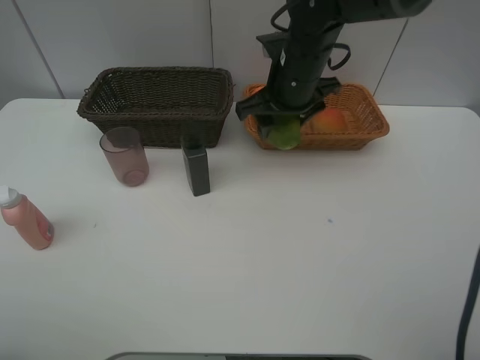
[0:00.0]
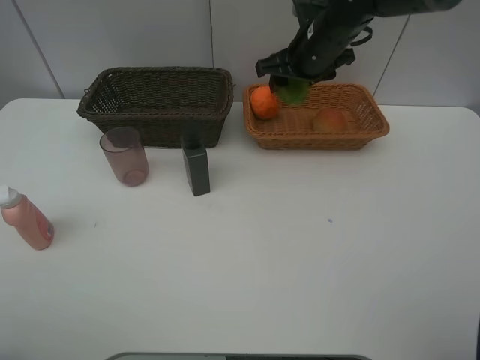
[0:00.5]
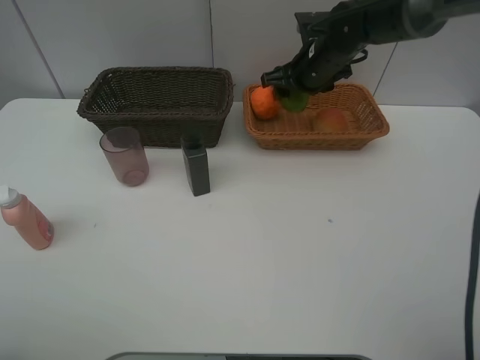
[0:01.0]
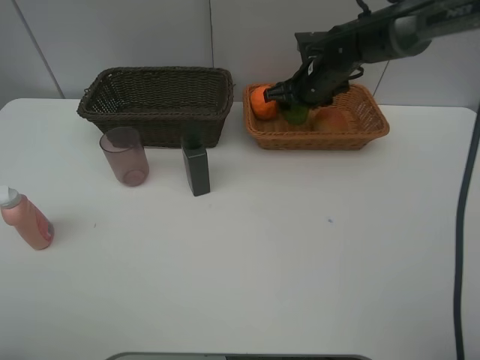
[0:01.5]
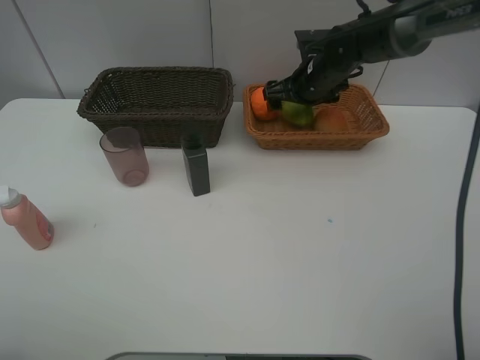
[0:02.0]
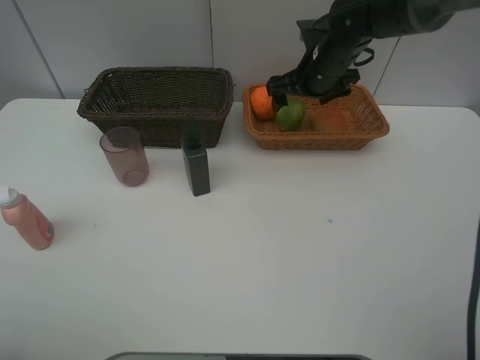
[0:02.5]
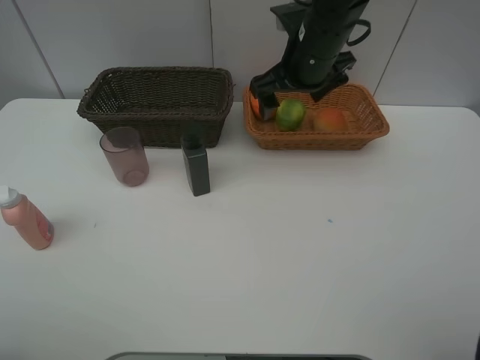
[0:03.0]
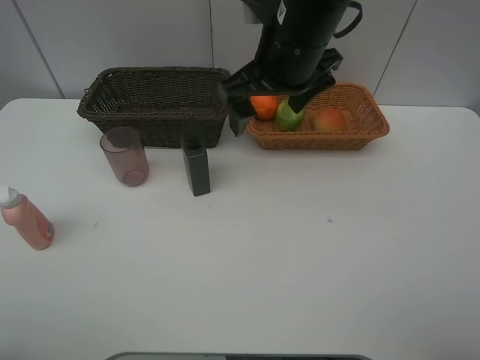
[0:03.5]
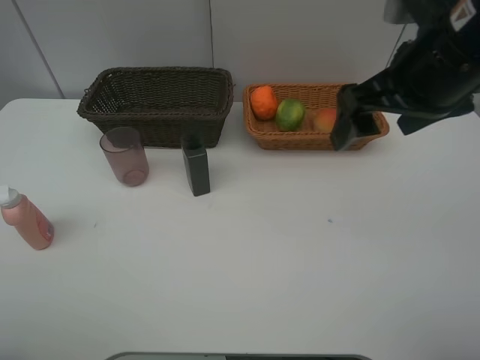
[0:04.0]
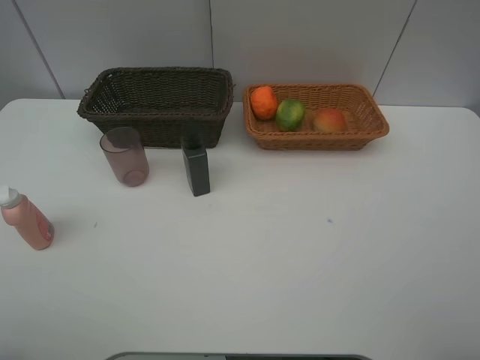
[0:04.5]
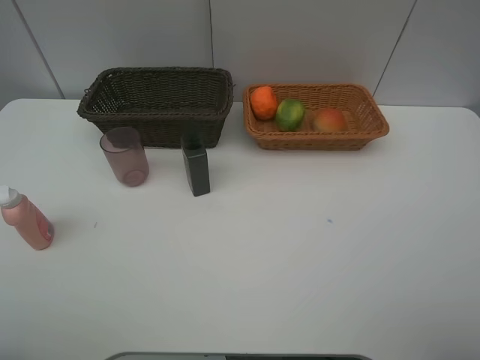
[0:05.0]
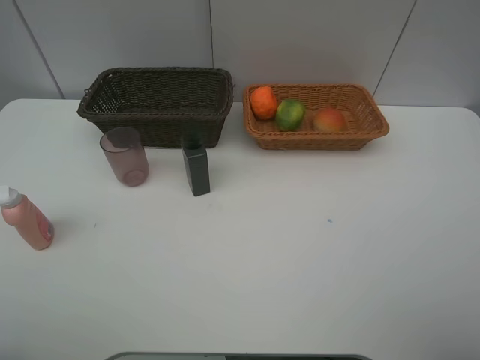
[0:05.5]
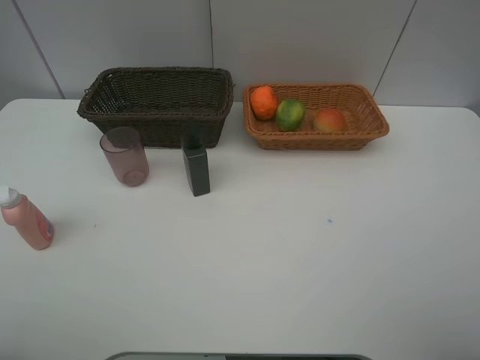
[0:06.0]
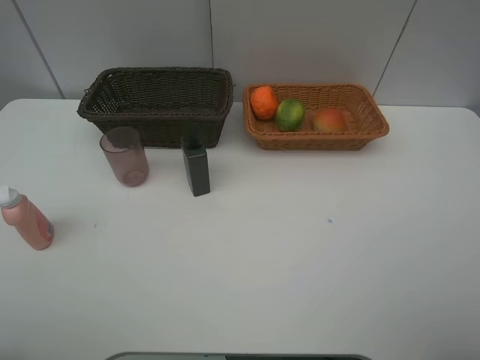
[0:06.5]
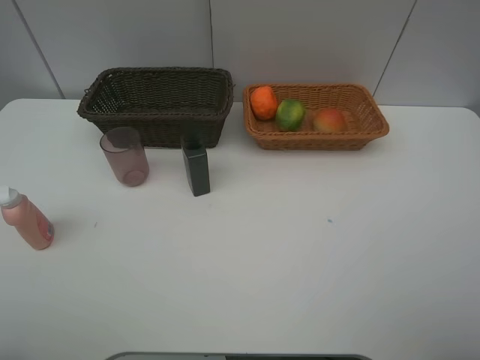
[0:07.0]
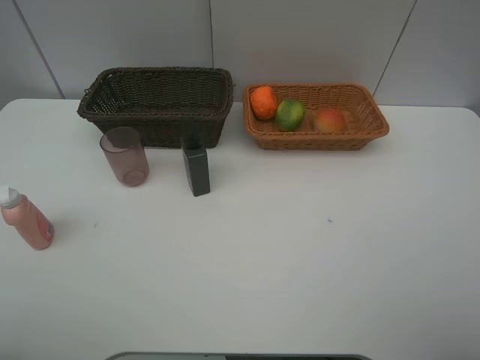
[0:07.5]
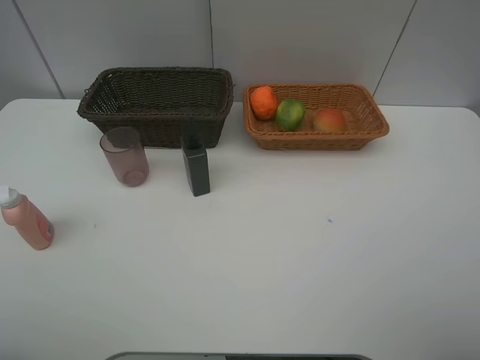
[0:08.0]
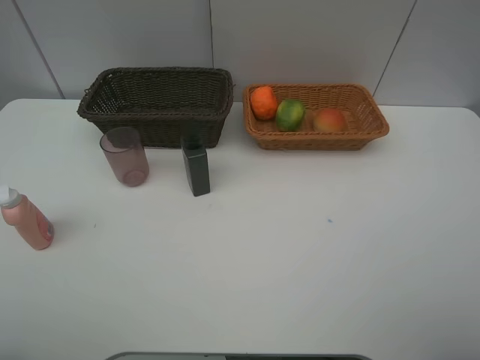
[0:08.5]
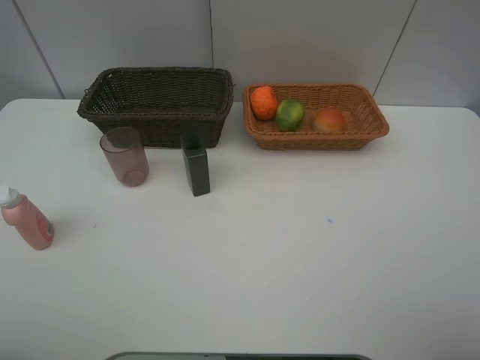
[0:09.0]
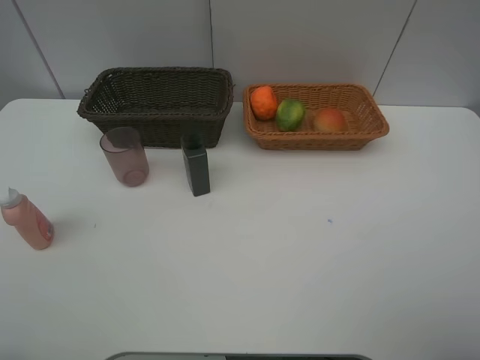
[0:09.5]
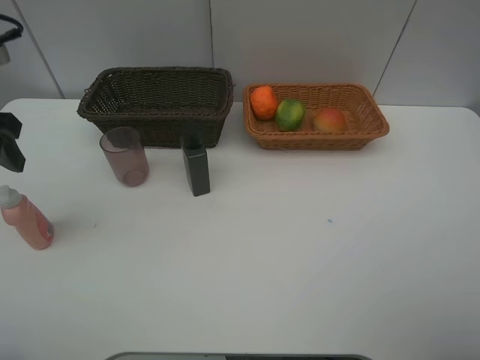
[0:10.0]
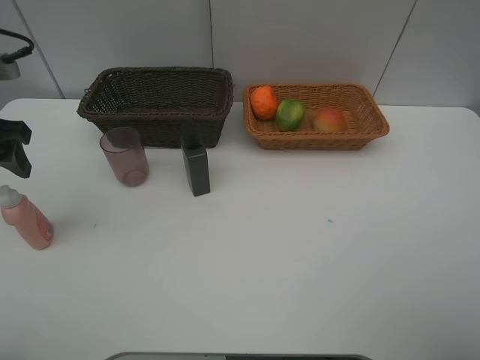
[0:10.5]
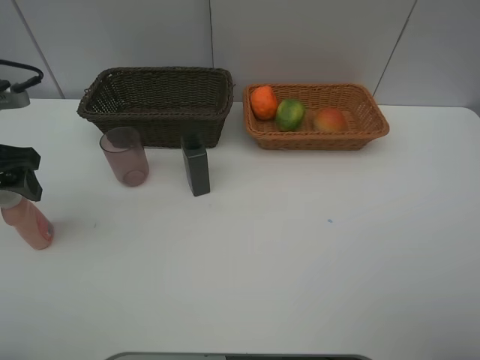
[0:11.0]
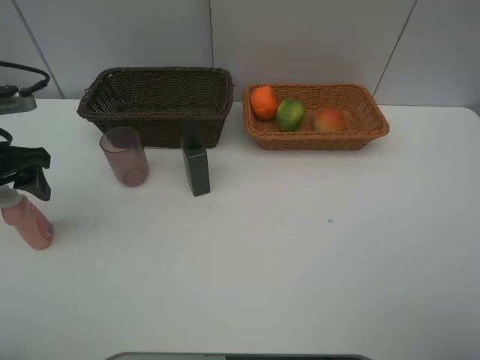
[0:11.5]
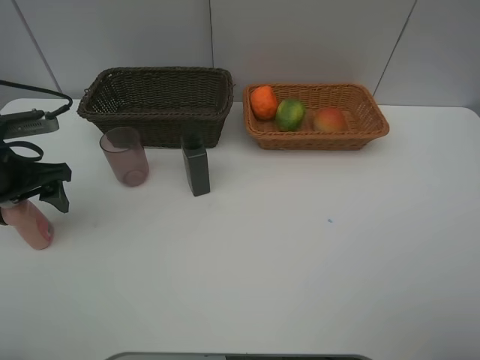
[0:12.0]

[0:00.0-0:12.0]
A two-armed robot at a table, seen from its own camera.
Task of the whole recording: place multiple objects separately in different baskets.
0.0 to 2.0 s: The right gripper travels forward, downward and to the right by roughly 10 cm, and opens up.
2.0 to 4.0 s: The right gripper shifts roughly 30 cm backward and upward.
4.0 to 6.0 s: The right gripper moves backward and to the right, approximately 25 cm.
8.0 to 10.0 s: The left gripper heads forward, covering about 20 cm.
10.0 to 12.0 s: The left gripper shifts some 10 cm downward.

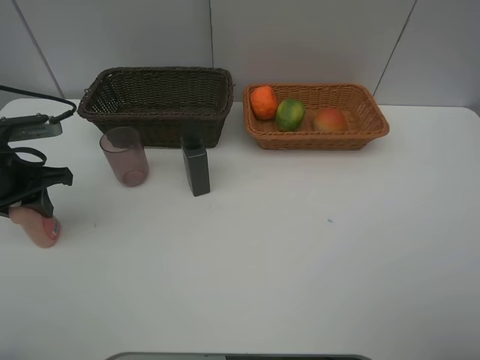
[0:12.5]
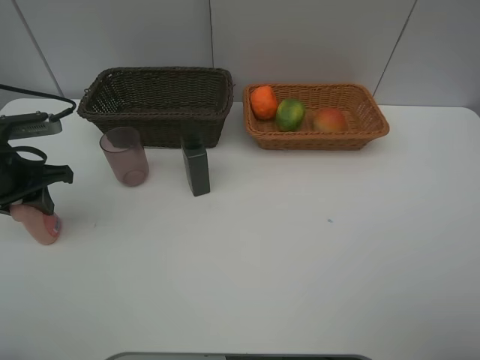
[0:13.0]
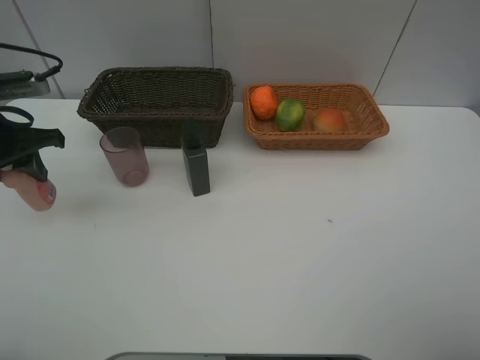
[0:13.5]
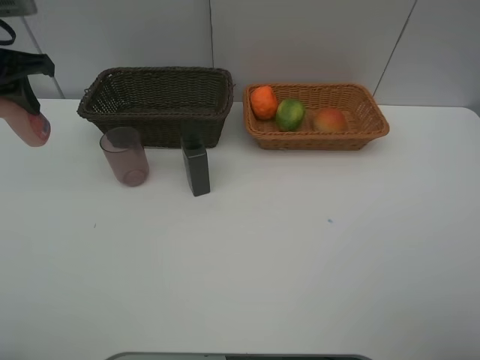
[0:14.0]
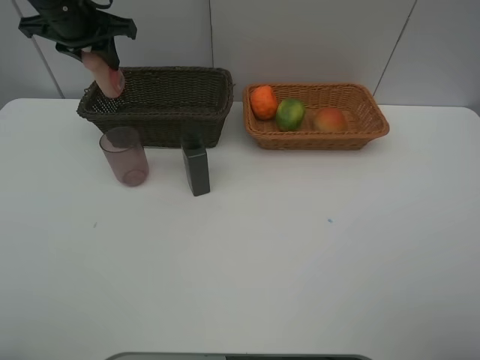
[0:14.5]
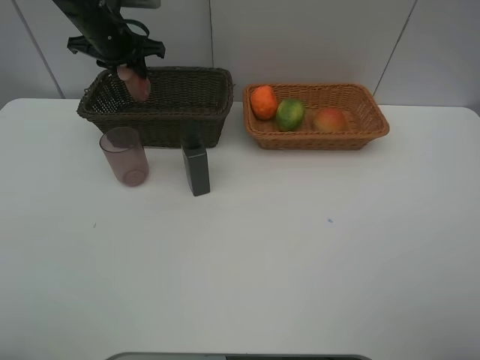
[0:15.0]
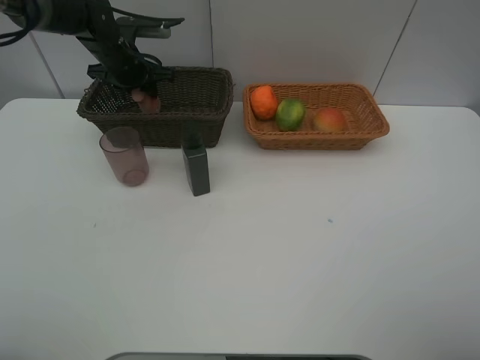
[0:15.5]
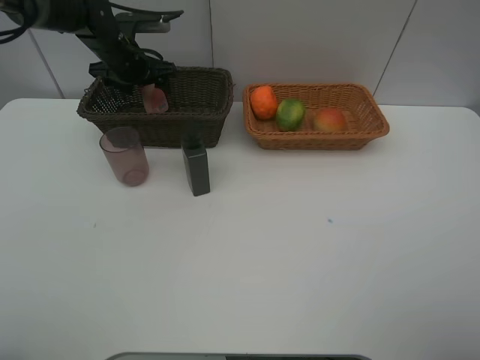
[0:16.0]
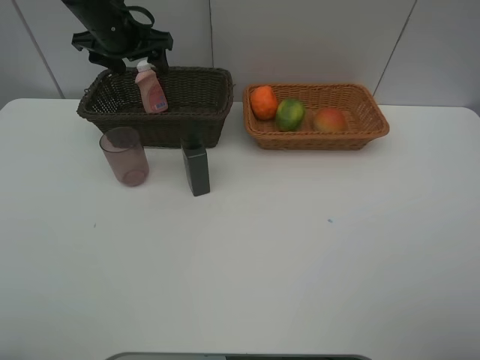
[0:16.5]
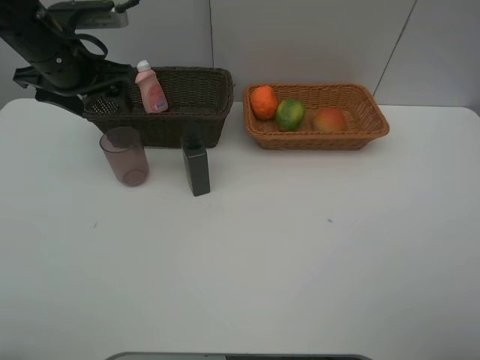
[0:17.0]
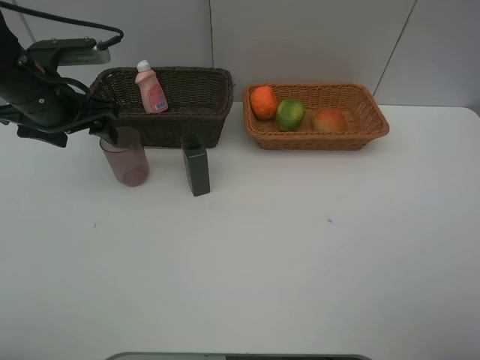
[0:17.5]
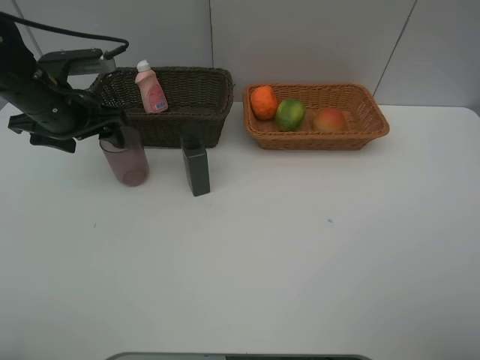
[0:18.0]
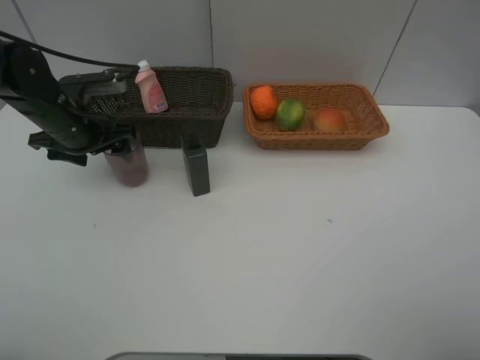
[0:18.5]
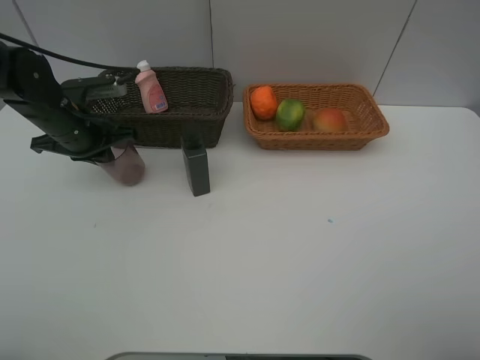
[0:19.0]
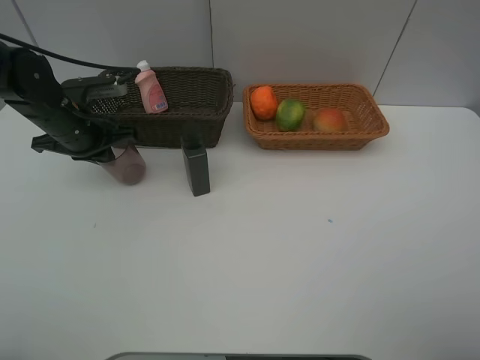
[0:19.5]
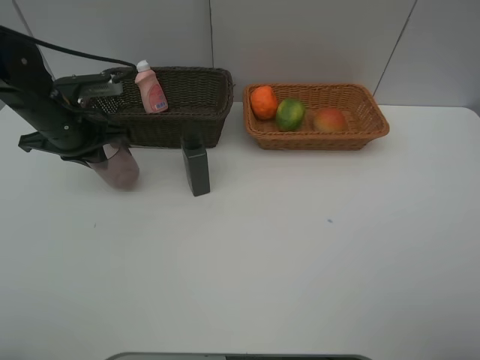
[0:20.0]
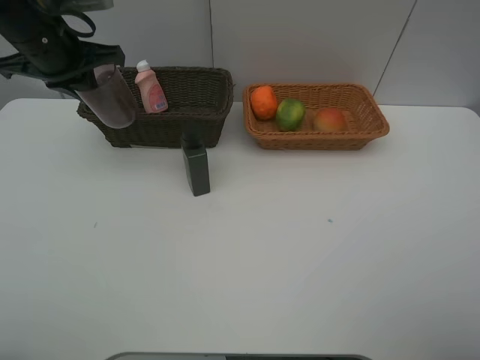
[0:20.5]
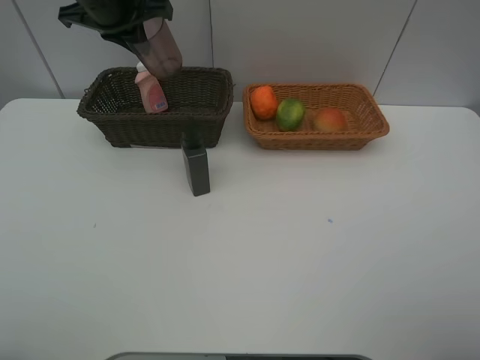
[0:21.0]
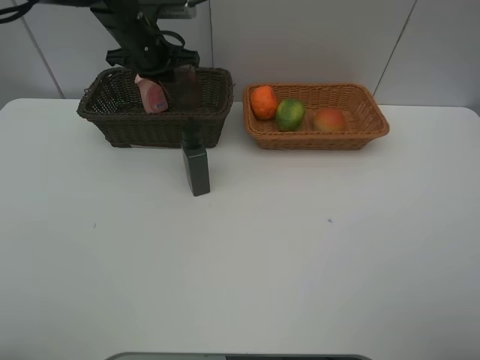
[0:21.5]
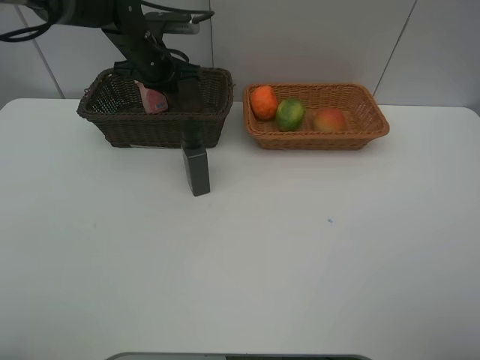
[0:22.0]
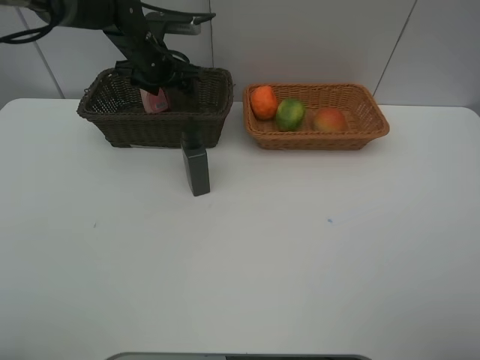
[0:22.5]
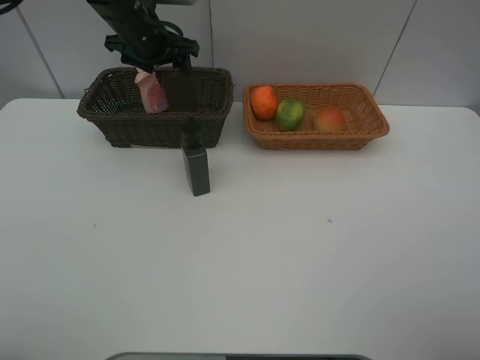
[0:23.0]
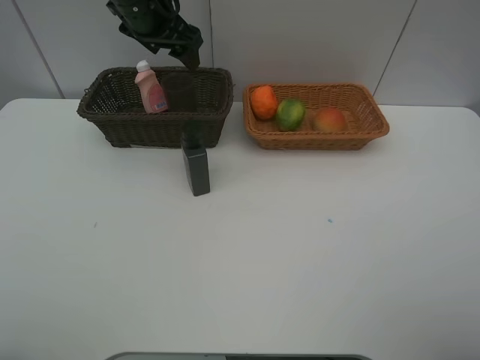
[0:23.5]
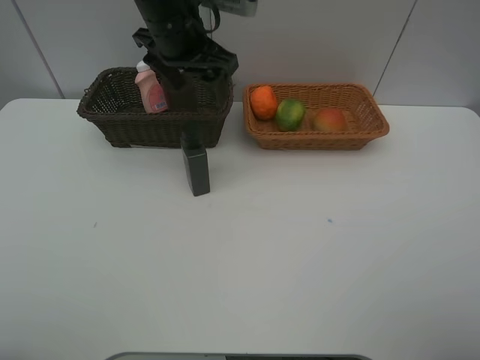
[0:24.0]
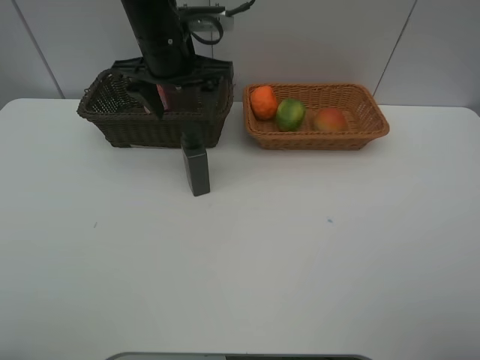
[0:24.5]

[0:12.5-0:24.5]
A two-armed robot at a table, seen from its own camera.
Task of the whole recording: place multiple objects separately in different baskets.
12.5 to 14.5 s: The left gripper heads forward, upward and to the right, covering some 25 cm.
14.5 to 16.5 s: The left gripper travels downward and back again, roughly 10 cm each way, and opens.
16.5 to 18.5 s: The left gripper goes some 15 cm backward, downward and to the left.
18.5 to 20.5 s: The left gripper travels upward by roughly 15 cm, and closes.
20.5 to 22.5 s: The left gripper is displaced forward, downward and to the right by some 15 cm, and opens.
22.5 to 24.5 s: The left gripper goes roughly 15 cm backward, upward and to the right.

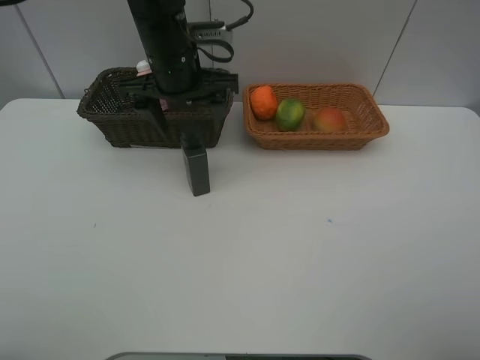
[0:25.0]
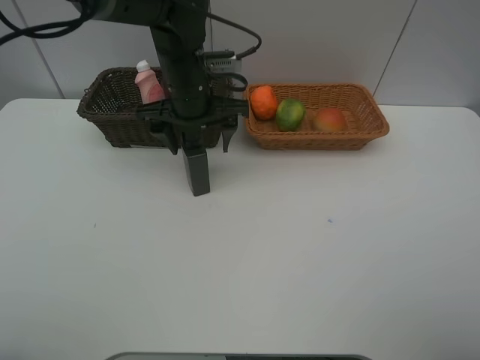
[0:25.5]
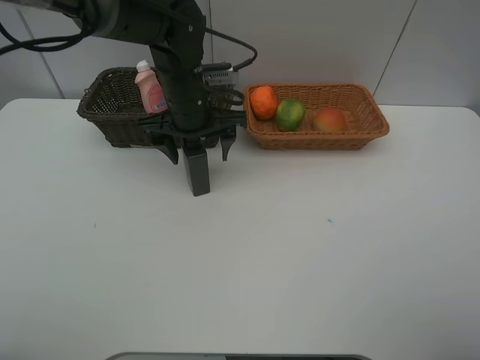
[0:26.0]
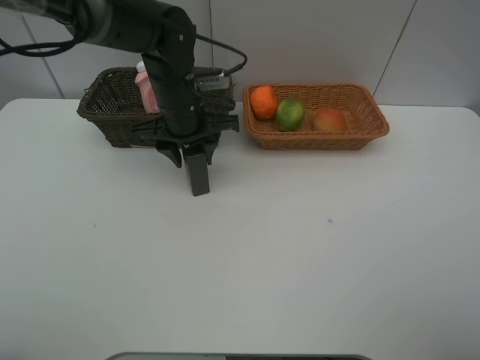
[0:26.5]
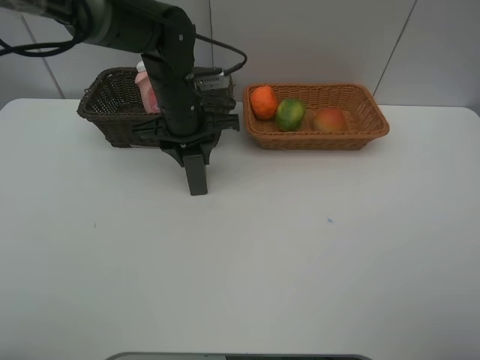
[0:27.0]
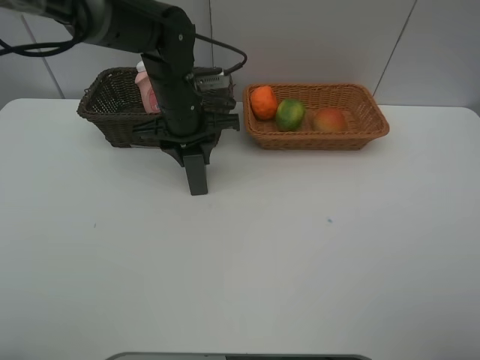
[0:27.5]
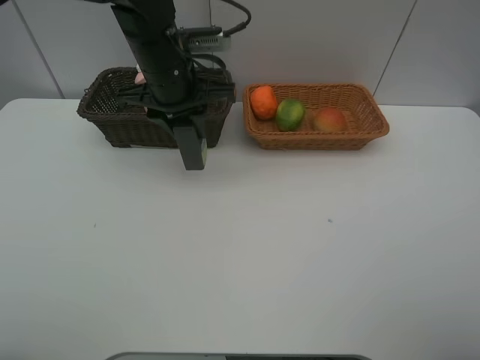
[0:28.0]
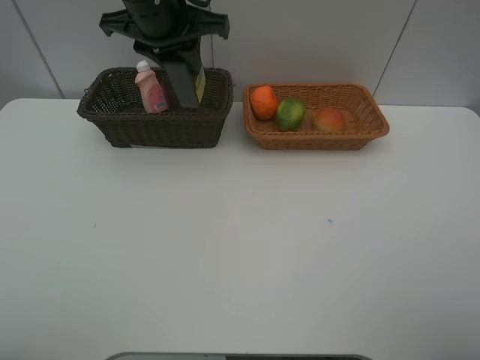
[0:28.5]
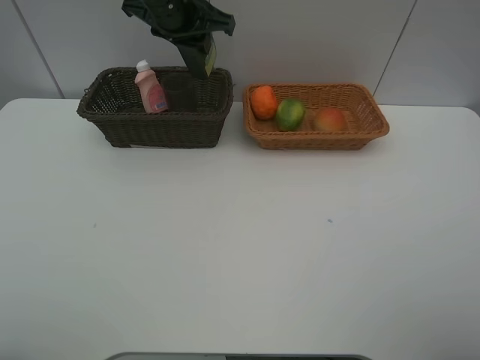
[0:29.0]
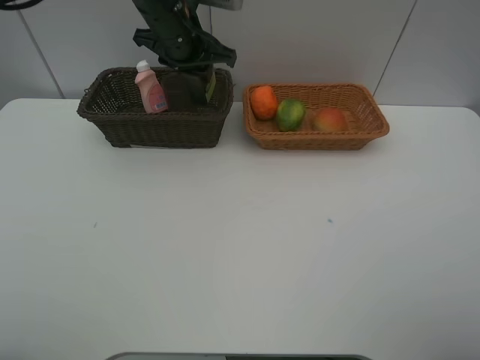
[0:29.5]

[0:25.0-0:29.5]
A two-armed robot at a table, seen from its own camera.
Task of the whole recording: place multiple objects separately in different baskets.
25.0 to 27.0 s: The left gripper shifts approximately 5 cm downward, and closes.
27.0 to 29.5 s: The left gripper heads upward and forward, covering about 10 cm.
